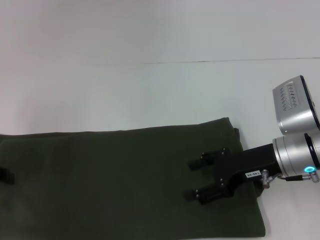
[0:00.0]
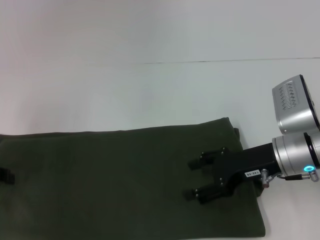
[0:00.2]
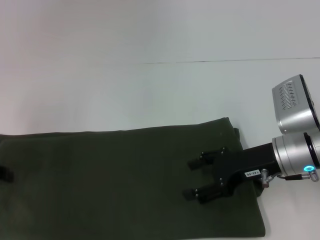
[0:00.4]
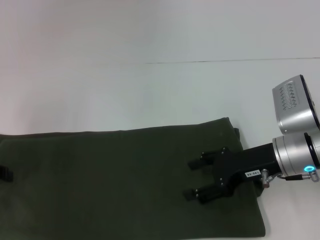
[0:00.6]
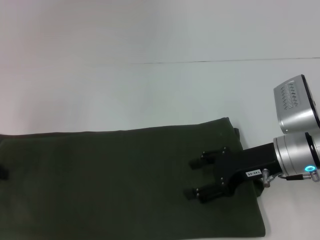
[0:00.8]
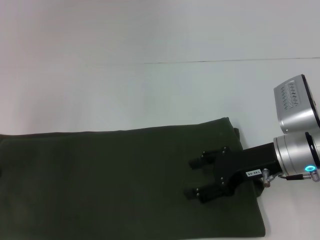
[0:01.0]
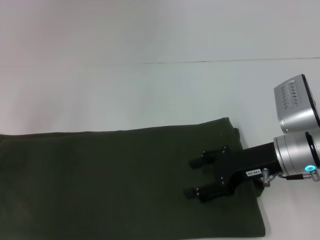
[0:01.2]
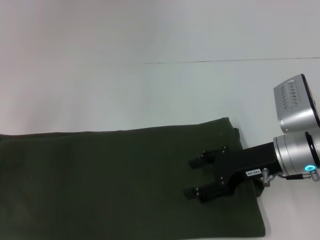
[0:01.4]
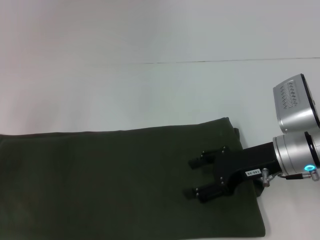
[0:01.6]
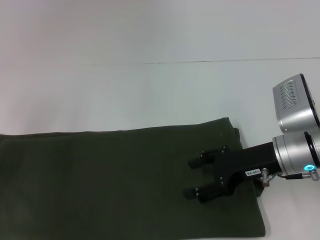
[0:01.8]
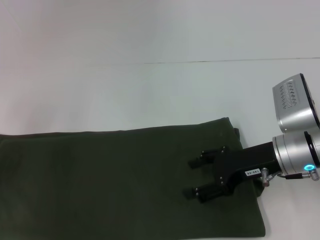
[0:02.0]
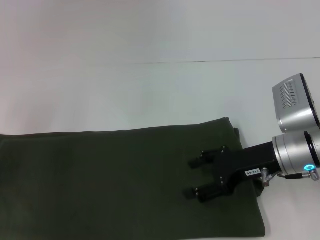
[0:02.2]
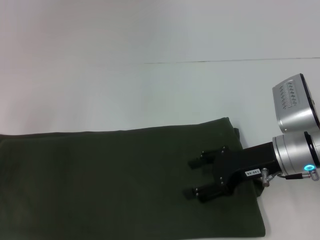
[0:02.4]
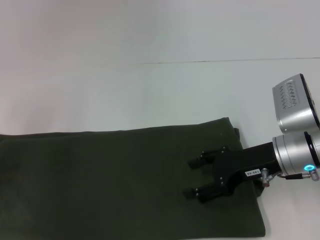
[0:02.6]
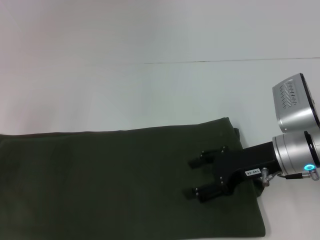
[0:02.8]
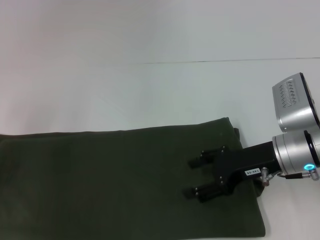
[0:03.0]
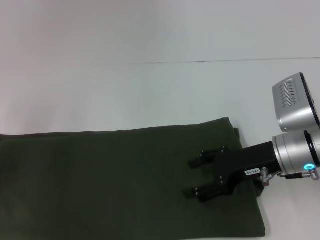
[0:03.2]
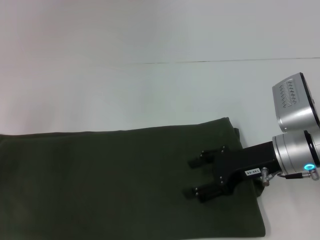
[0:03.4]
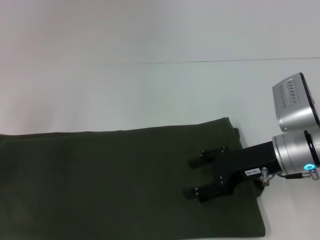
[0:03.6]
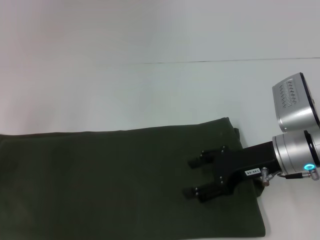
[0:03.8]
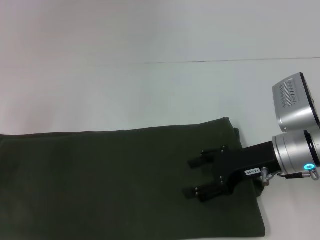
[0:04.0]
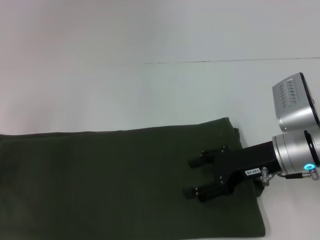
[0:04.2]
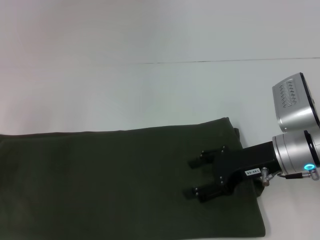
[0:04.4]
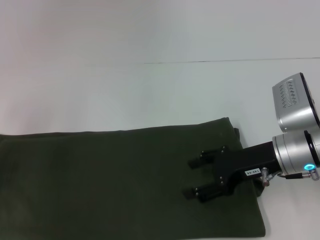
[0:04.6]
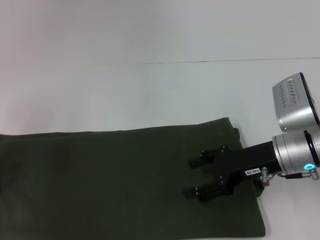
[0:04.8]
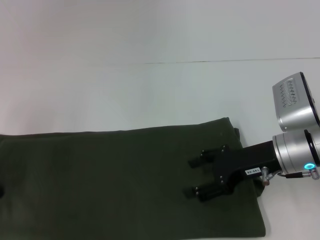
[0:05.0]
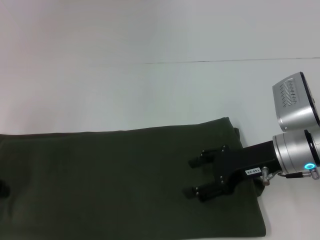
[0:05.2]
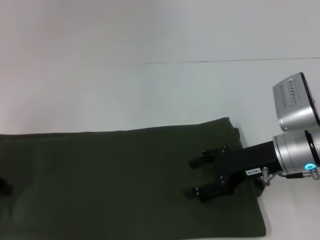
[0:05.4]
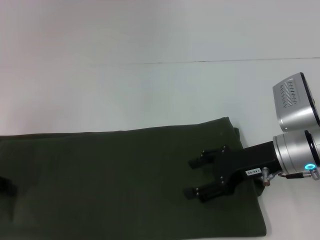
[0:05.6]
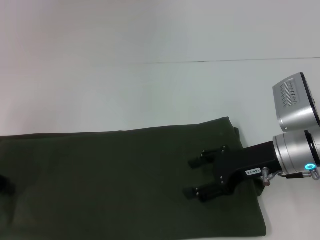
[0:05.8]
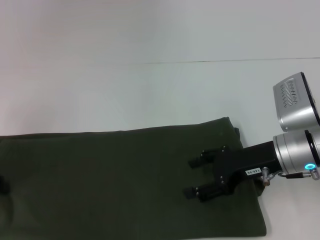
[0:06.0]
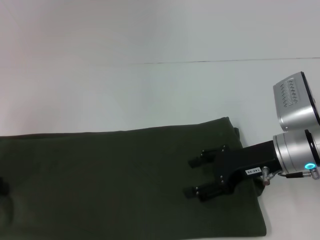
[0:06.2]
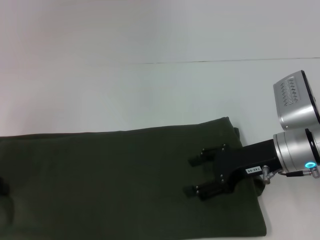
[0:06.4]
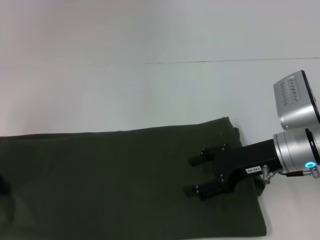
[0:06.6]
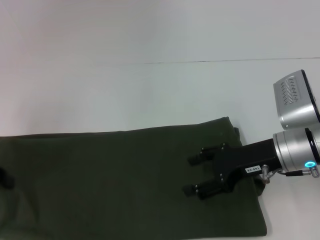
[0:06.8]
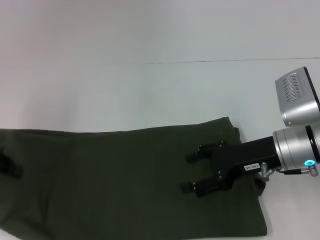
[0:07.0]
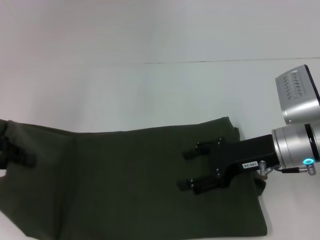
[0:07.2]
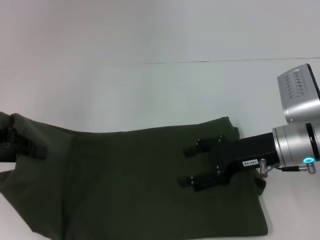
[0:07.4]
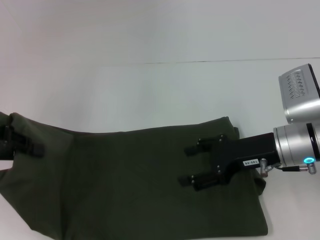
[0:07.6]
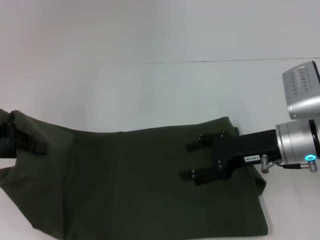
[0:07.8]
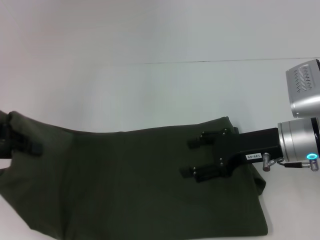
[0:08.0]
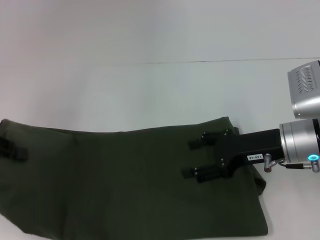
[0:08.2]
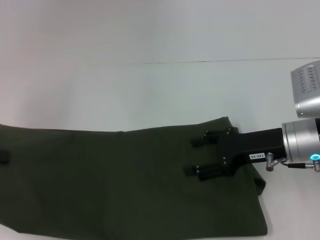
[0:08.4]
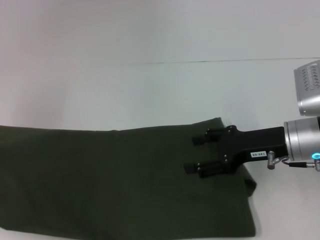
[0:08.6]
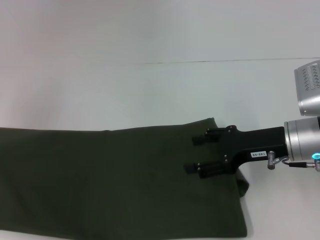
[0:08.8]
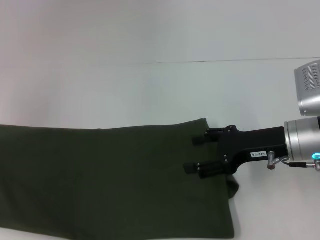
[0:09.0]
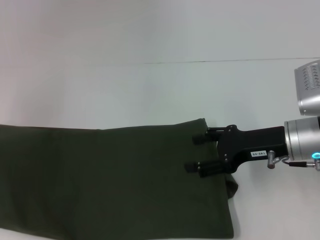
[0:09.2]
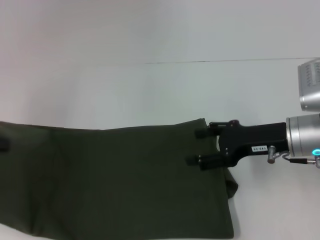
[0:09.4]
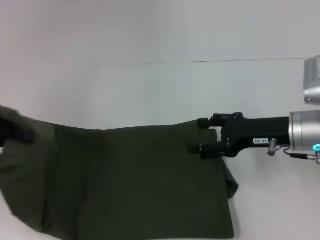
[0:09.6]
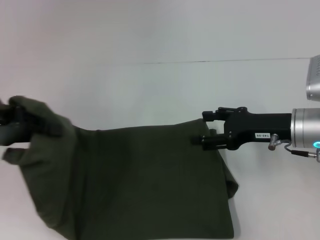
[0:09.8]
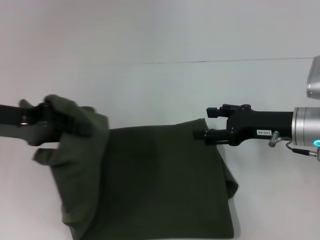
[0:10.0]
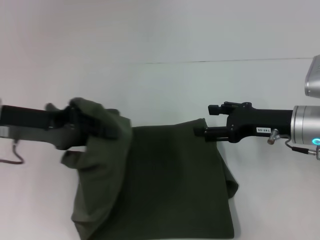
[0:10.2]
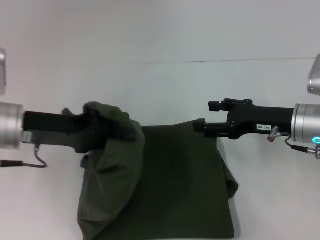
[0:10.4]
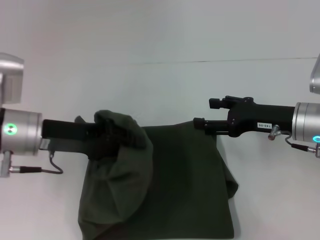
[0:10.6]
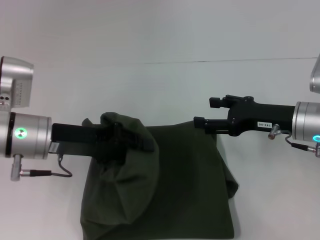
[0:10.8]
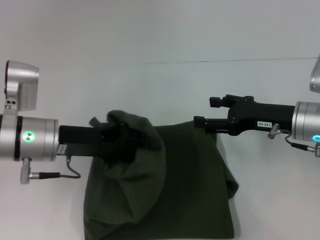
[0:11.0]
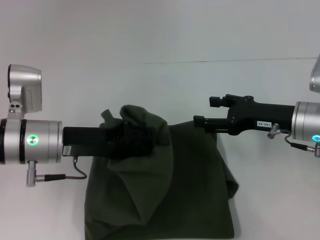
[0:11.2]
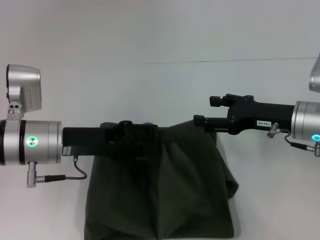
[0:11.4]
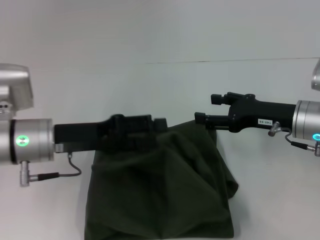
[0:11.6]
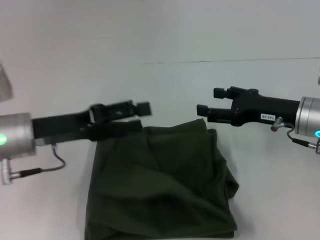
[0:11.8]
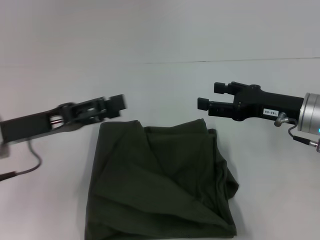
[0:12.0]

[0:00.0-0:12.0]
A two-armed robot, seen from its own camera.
Step, 0:00.0 to 0:11.6: Fold the clothes with your left hand.
0:00.0 to 0:01.6: There are only small adjustments of the grippers.
0:01.6 to 0:03.0: Both grippers stay put.
0:03.0 to 0:04.4: The two grippers keep their place.
0:04.4 to 0:06.0: The grippers move only a little.
0:06.0 to 0:07.6: The left gripper is displaced upward by approximately 5 cm.
0:07.6 to 0:09.0: The left gripper moves to the left, about 5 cm.
0:09.0 to 0:10.4: The left gripper travels to the right by some 15 cm.
0:10.4 to 0:12.0: The left gripper opens.

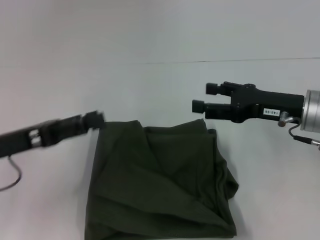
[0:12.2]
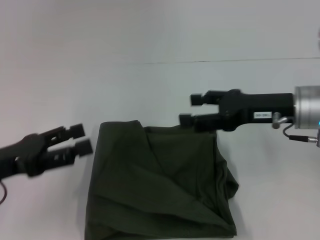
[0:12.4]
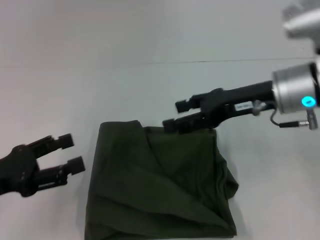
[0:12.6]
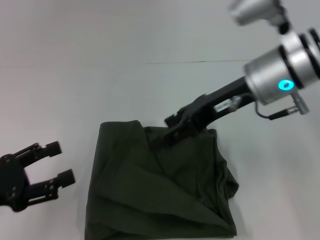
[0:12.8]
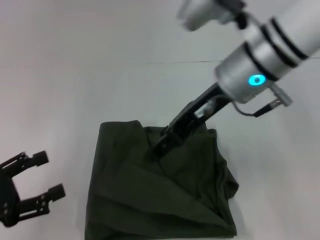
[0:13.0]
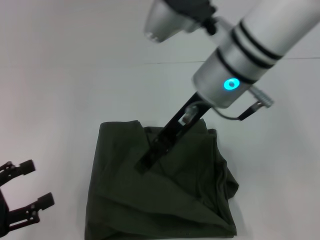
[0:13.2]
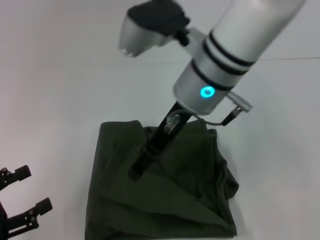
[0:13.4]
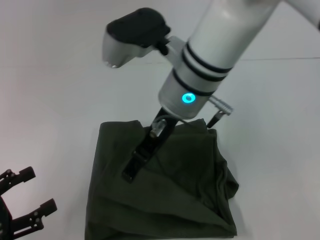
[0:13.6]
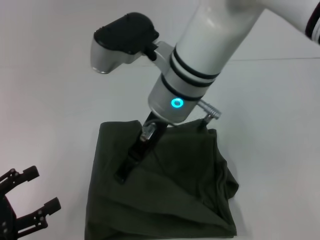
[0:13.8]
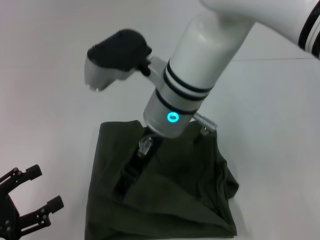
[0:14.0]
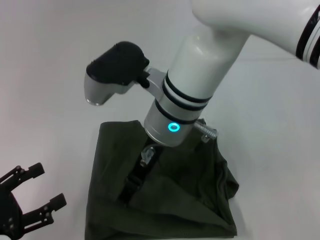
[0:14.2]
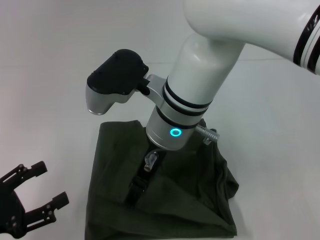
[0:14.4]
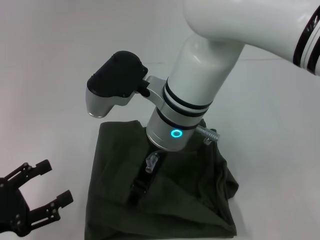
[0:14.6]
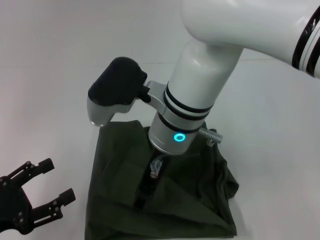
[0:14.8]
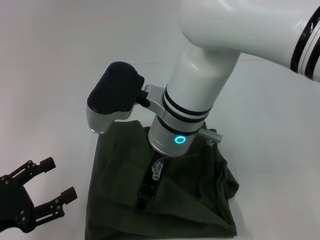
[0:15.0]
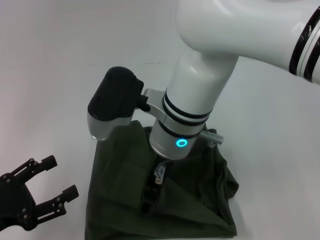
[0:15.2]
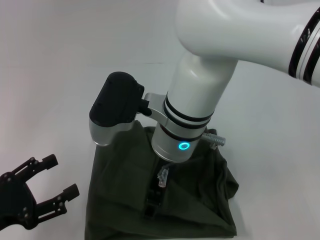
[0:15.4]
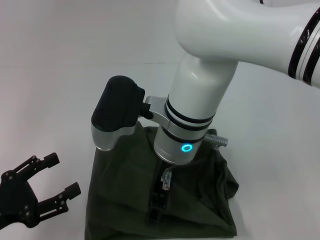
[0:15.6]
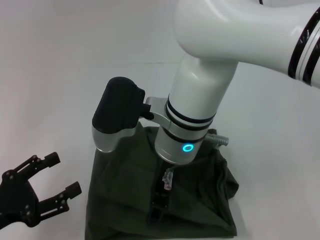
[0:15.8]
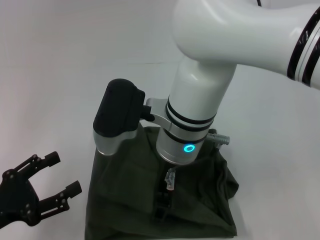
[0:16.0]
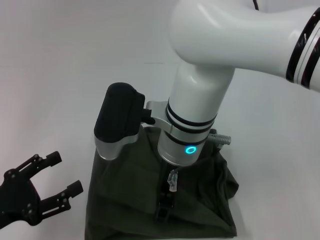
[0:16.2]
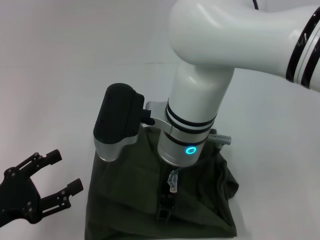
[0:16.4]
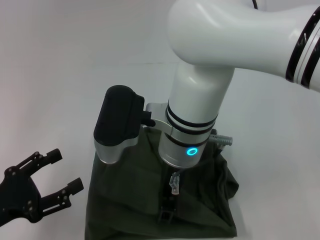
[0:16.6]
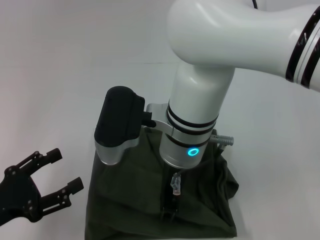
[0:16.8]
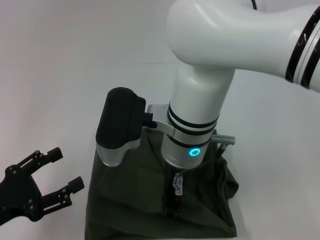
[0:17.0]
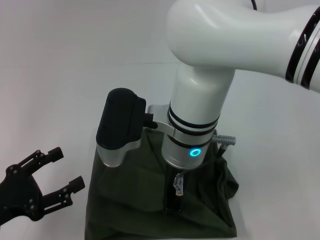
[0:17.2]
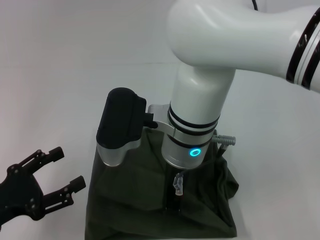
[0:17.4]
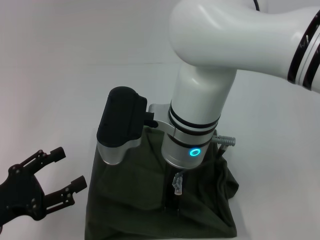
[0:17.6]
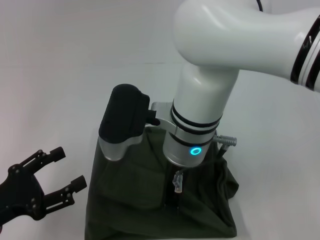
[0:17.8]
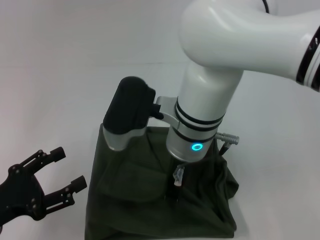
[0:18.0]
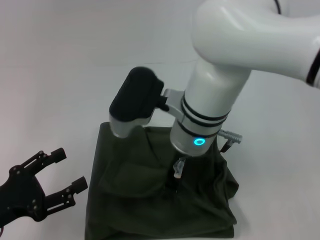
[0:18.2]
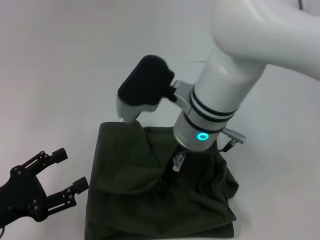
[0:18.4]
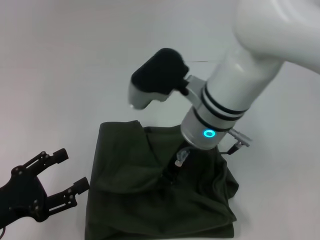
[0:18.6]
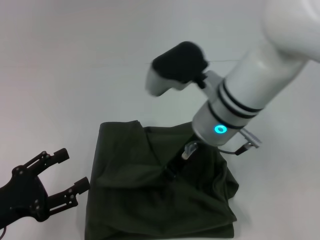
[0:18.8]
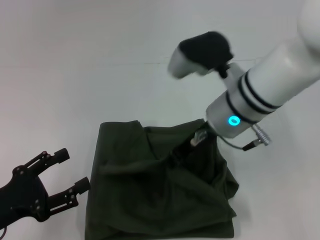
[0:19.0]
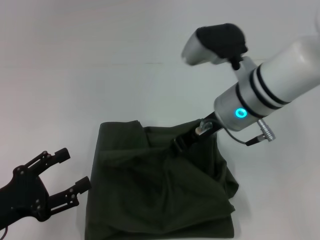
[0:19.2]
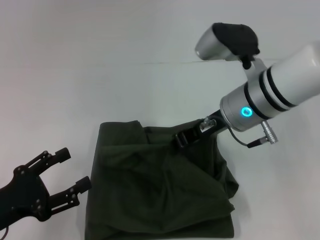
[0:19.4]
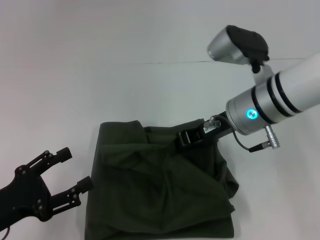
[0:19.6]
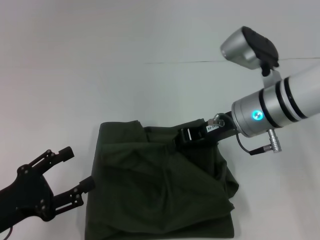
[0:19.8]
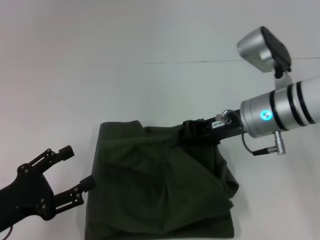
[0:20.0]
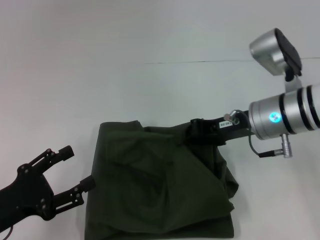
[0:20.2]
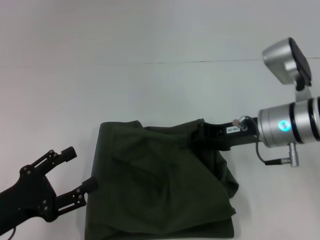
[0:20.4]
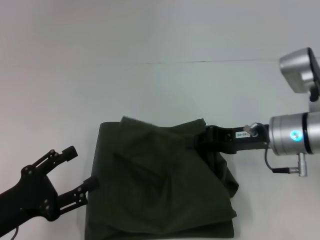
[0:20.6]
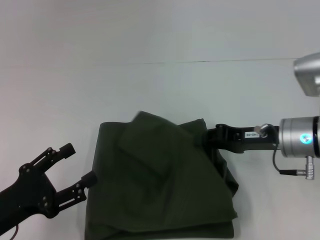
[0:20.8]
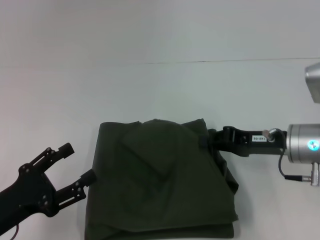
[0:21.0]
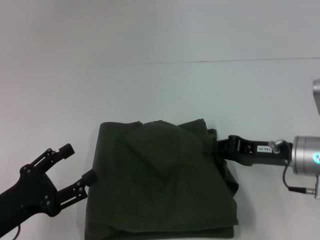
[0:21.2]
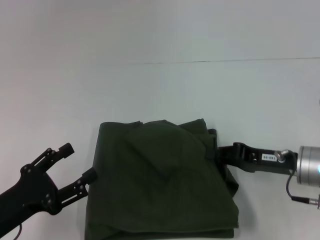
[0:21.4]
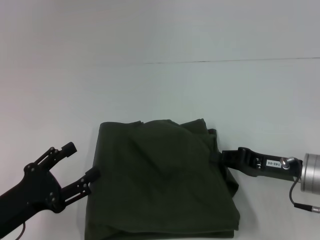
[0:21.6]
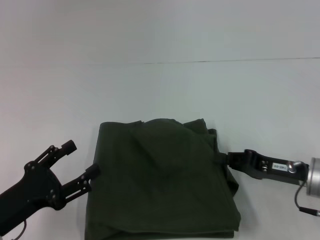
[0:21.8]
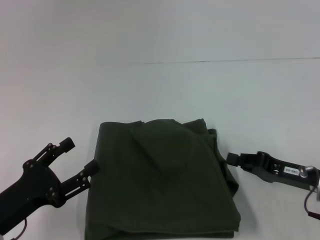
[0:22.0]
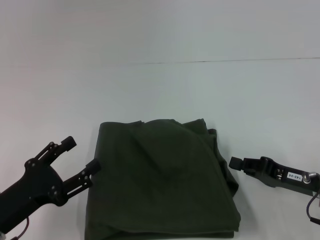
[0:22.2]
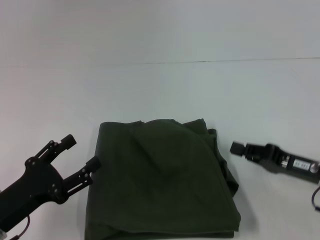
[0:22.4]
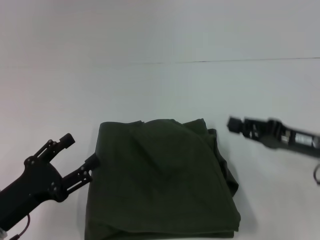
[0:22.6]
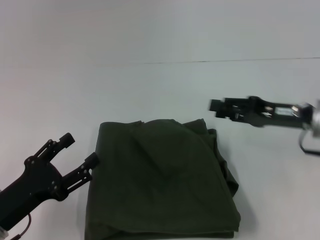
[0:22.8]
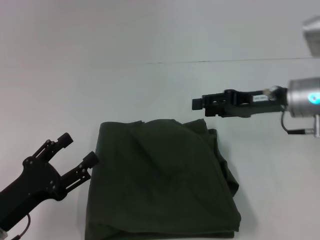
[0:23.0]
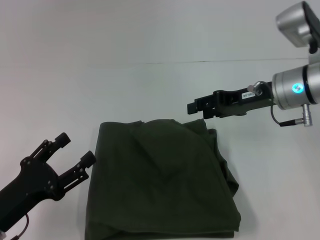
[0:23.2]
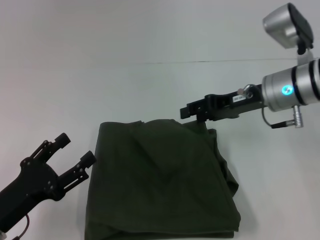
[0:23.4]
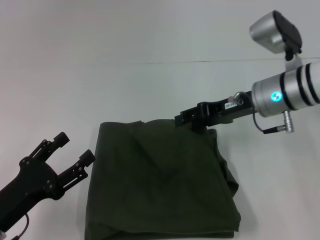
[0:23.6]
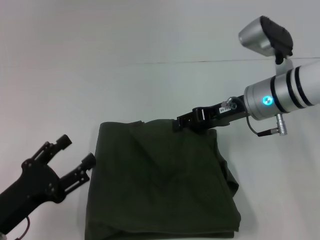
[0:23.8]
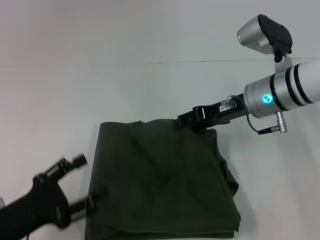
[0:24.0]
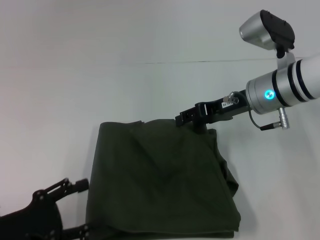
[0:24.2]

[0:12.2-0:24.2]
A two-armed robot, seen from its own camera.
0:12.2 to 0:13.8: The left gripper shifts about 15 cm backward and downward; the right gripper moves to the left, some 25 cm.
0:15.2 to 0:16.6: The grippers make only small movements.
0:16.6 to 0:18.2: The right gripper closes its fingers.
0:18.2 to 0:19.8: The right gripper is displaced to the right by about 10 cm.
0:19.8 to 0:21.2: The right gripper goes about 10 cm to the right, downward and backward.
0:22.6 to 0:24.2: The right gripper is displaced forward, to the left and upward by some 15 cm, and opens.
